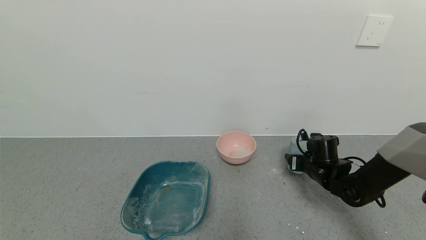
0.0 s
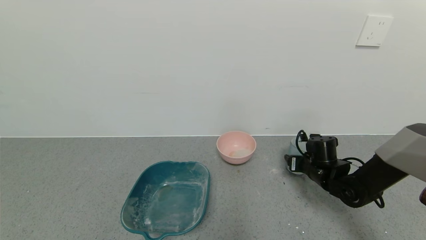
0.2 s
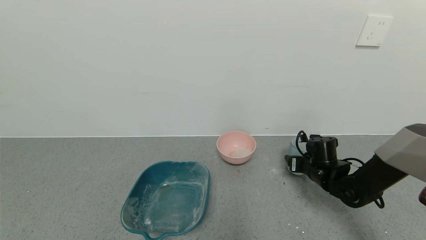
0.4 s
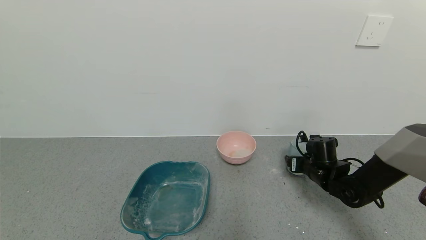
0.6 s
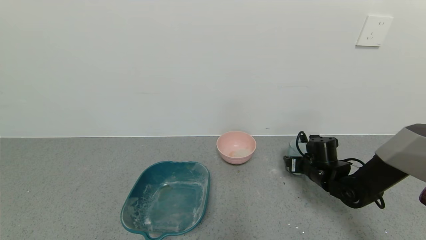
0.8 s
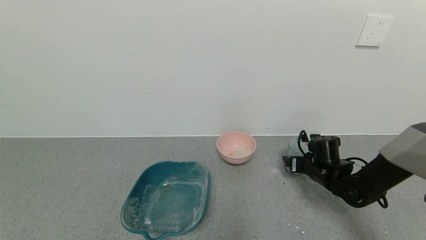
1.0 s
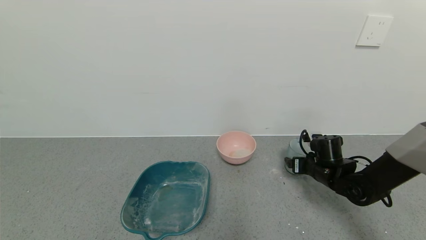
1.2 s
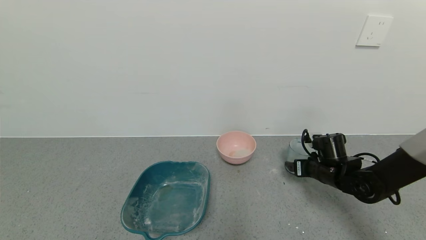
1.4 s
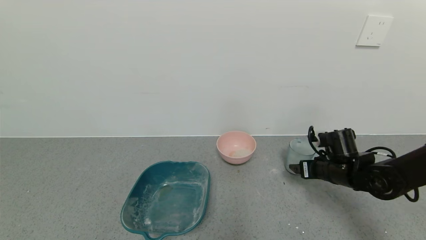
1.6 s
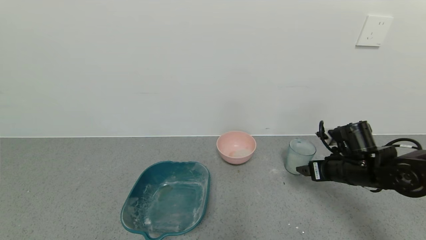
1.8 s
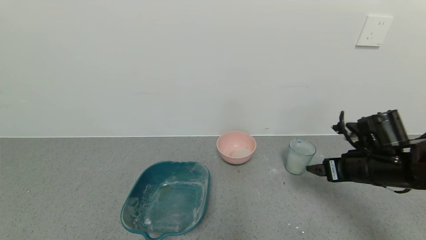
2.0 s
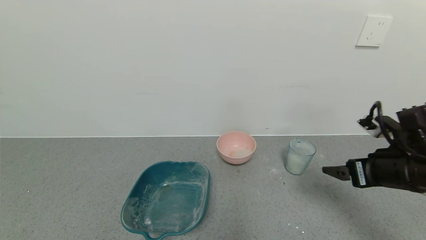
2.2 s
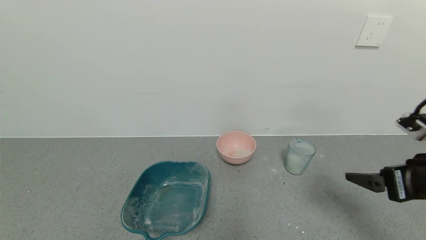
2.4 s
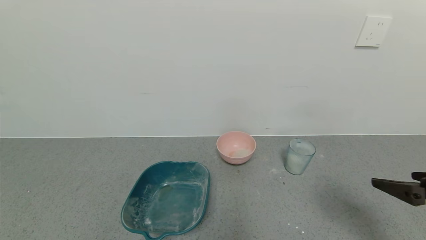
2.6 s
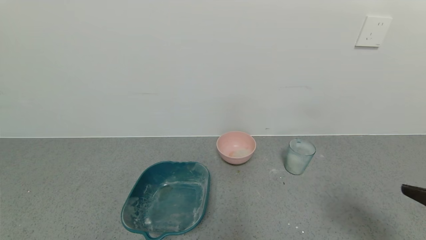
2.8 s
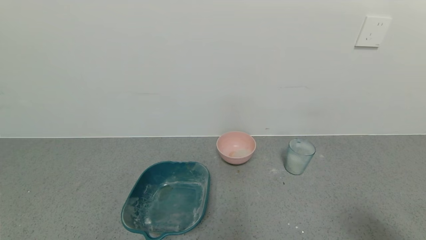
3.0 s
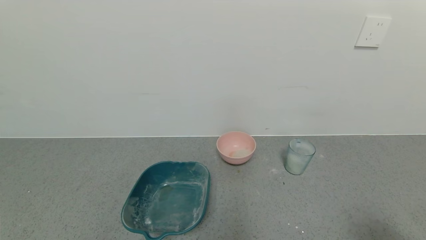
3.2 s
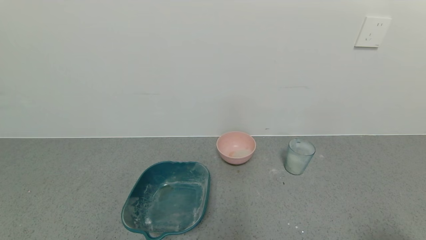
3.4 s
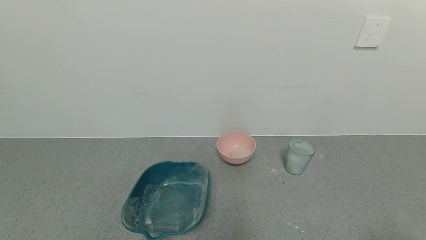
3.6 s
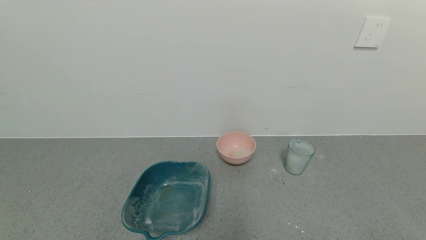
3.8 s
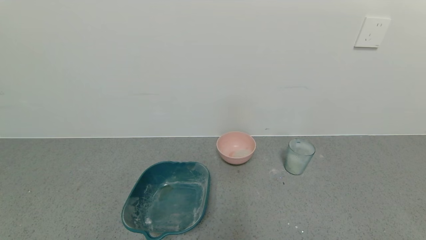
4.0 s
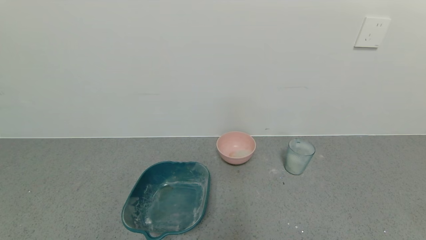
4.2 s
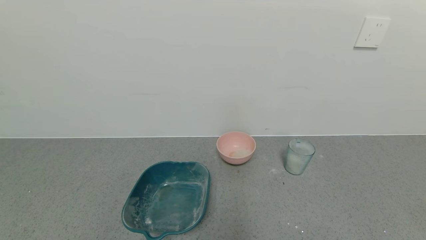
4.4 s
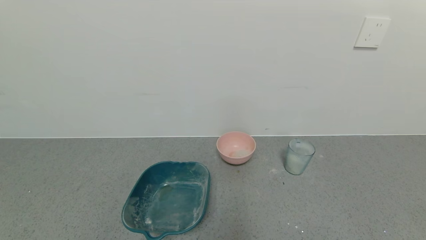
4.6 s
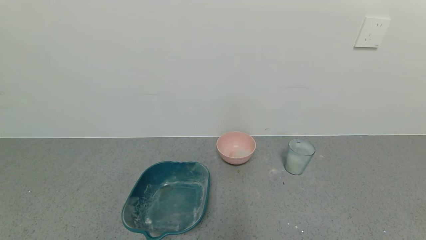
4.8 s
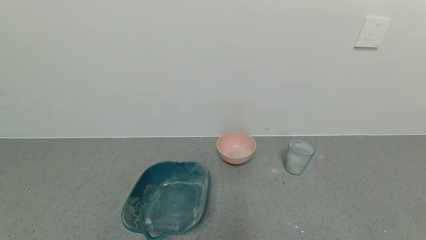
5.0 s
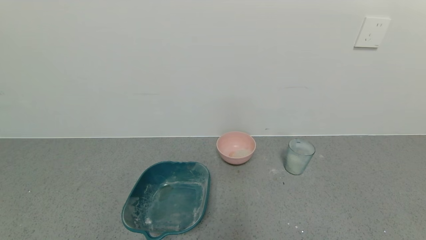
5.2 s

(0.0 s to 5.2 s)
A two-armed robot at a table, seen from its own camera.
Task of the whole recording: use a gripper to pick up the cup and pour the powder into a bowl or tray.
0.0 s - 1.8 s: The right gripper goes some 10 cm upward and backward, and opens its fingers.
1.8 s - 3.4 s: The right gripper goes about 30 cm backward.
